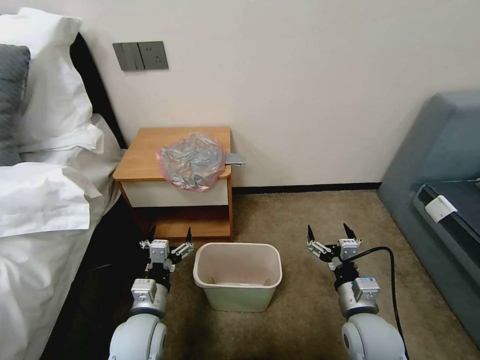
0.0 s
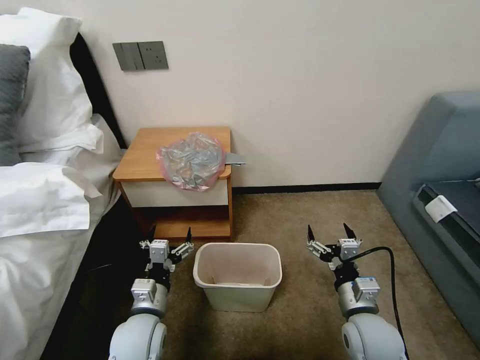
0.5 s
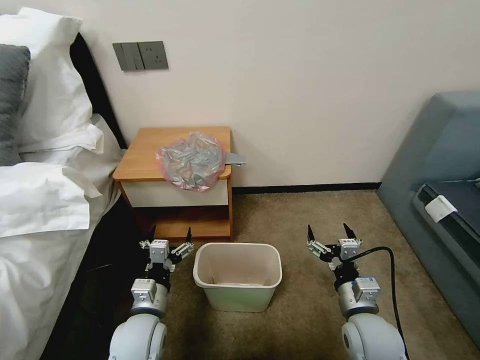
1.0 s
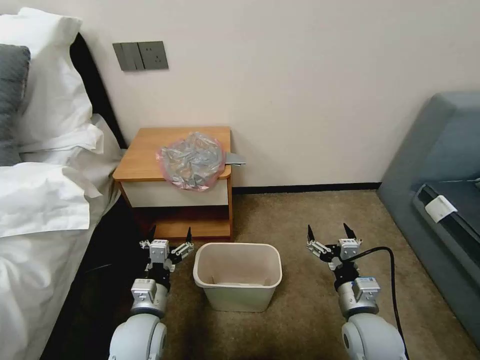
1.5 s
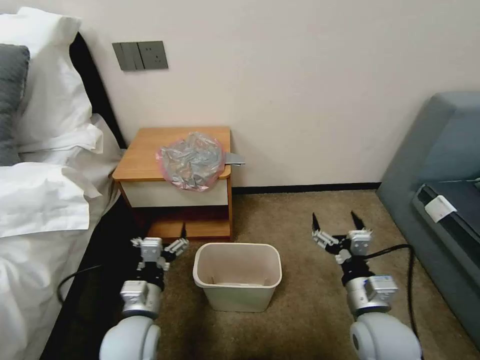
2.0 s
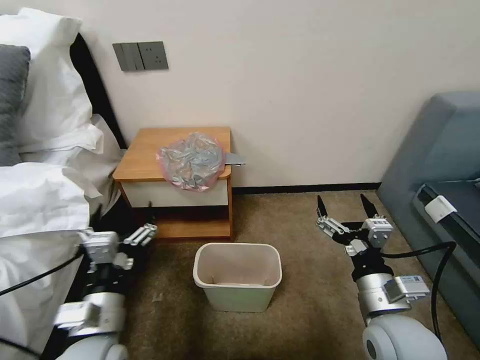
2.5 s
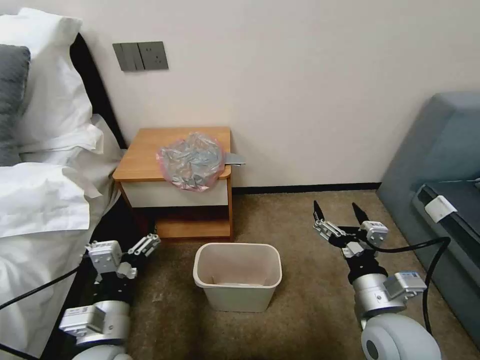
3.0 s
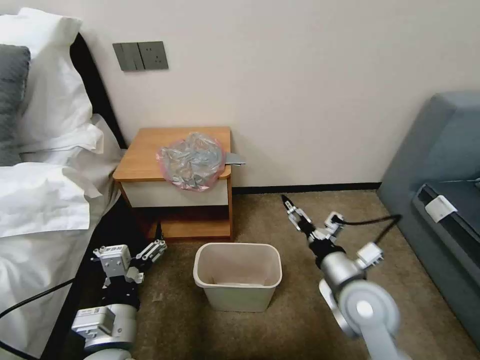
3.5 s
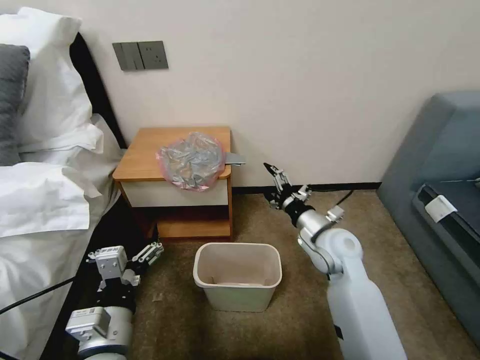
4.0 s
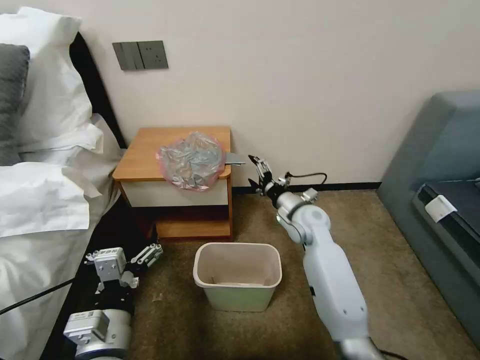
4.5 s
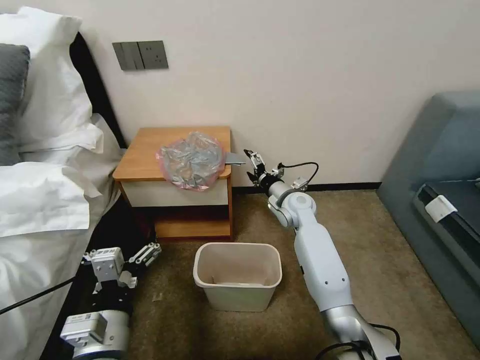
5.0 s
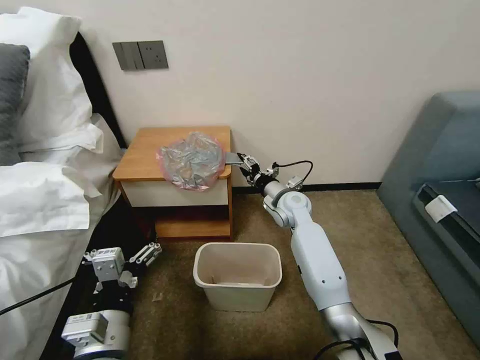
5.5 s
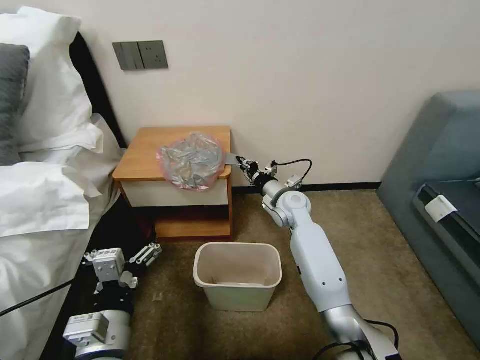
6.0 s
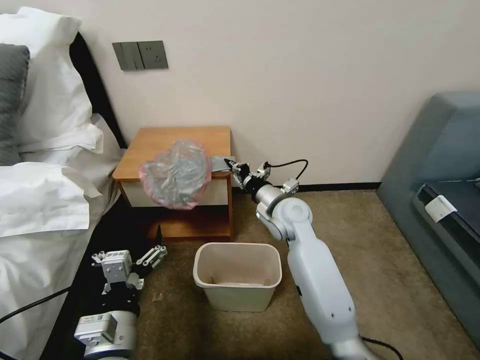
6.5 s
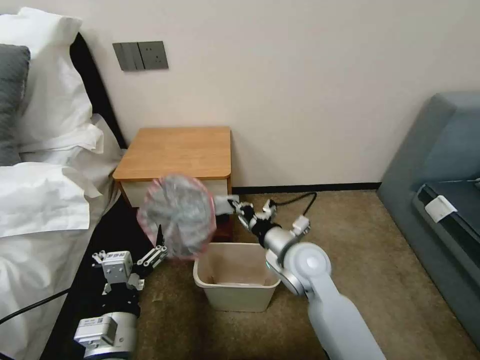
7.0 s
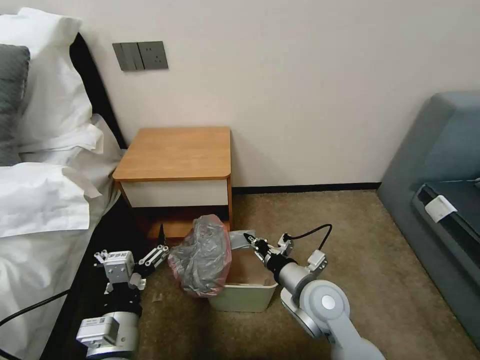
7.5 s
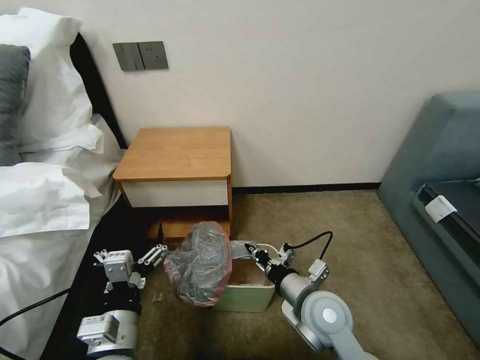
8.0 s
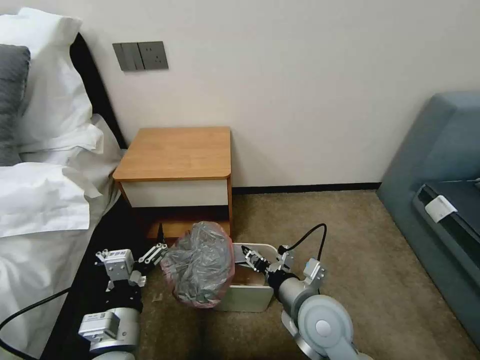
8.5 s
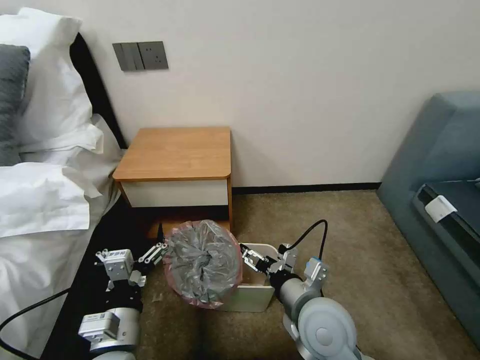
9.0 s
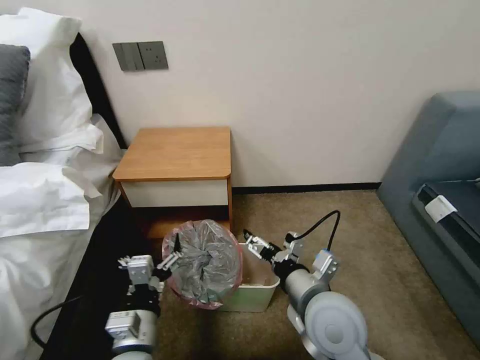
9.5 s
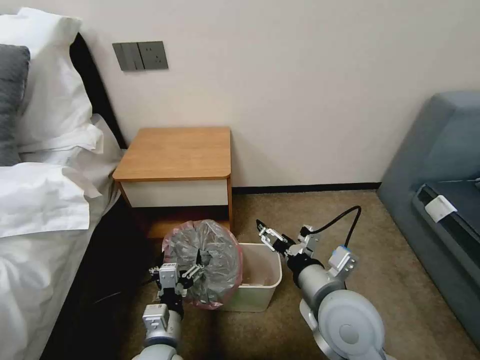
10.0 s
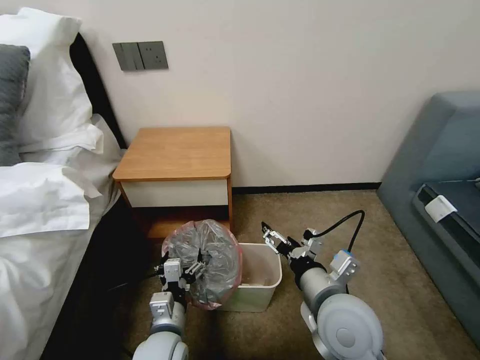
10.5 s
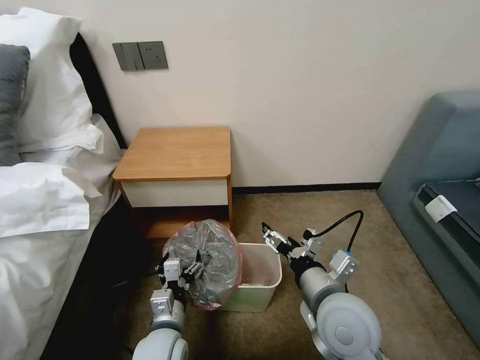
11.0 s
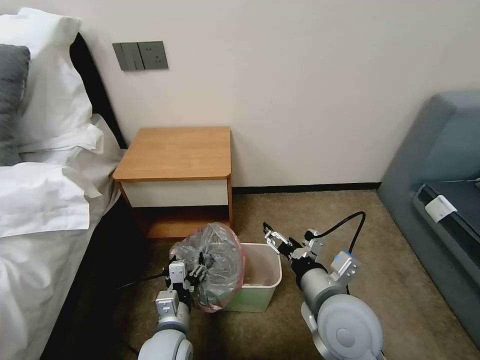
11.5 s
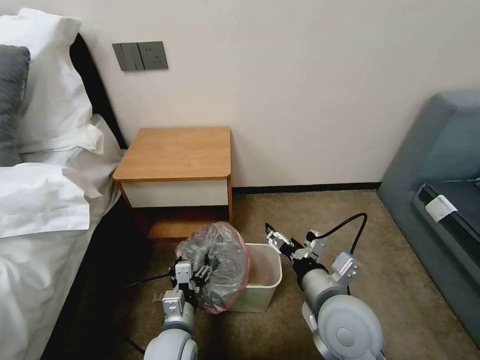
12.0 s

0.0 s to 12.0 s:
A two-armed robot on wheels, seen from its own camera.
Task of the whole recording: Pick up the garbage bag from the table and place it over the trash can.
2.0 to 4.0 s: The left gripper goes some 10 cm upward and backward. The right gripper heads forward, covering approximately 15 cm.
4.0 to 6.0 s: The right gripper heads forward and to the left, covering about 15 cm, and closes its fingers.
6.0 to 8.0 s: The right gripper shifts roughly 25 cm backward.
8.0 to 10.0 s: The right gripper moves upward, approximately 10 cm, and opens its fingers, while the left gripper moves downward, approximately 10 cm.
10.0 to 12.0 s: There are only small adjustments of the grippers.

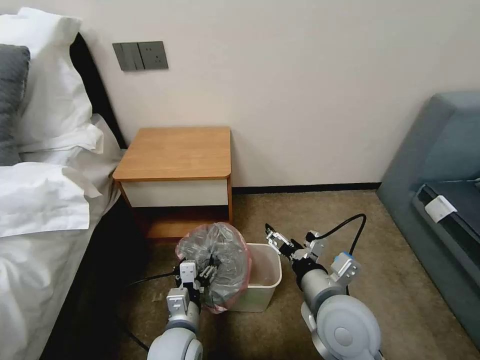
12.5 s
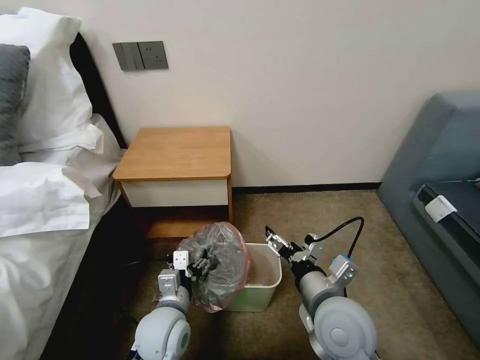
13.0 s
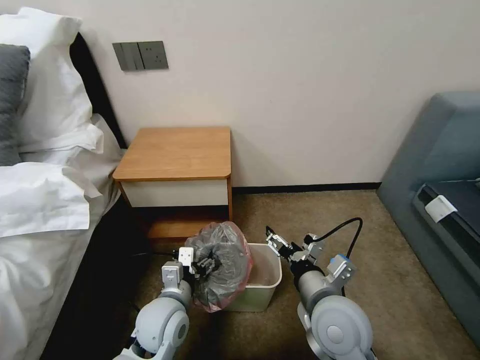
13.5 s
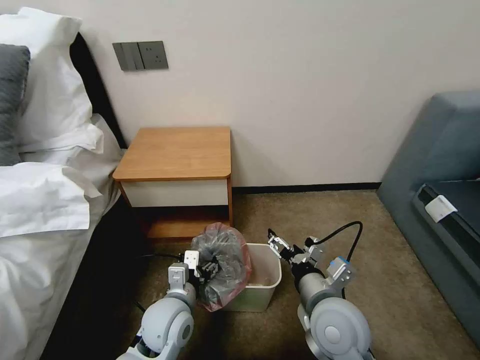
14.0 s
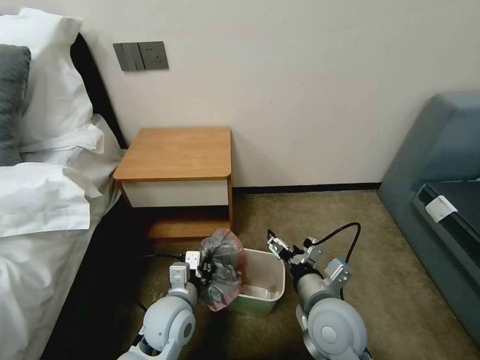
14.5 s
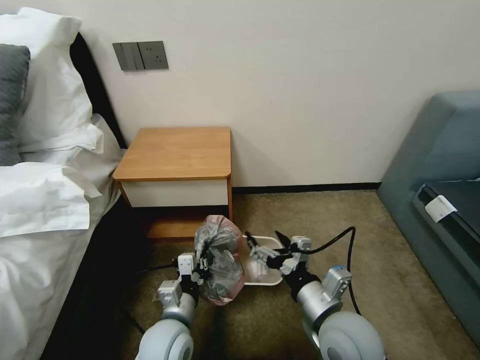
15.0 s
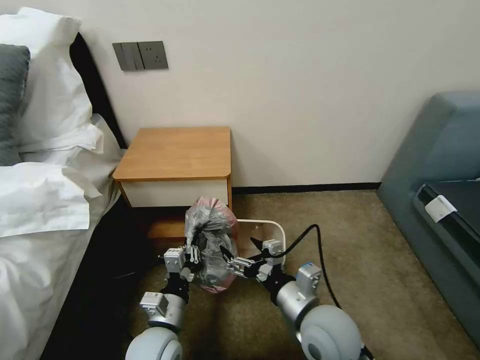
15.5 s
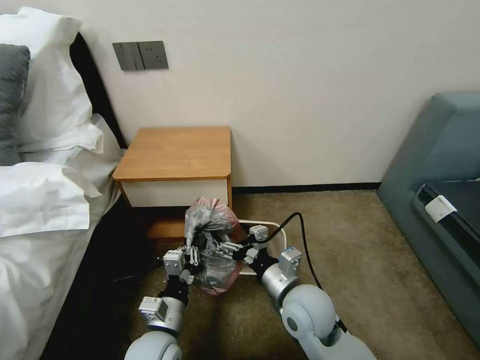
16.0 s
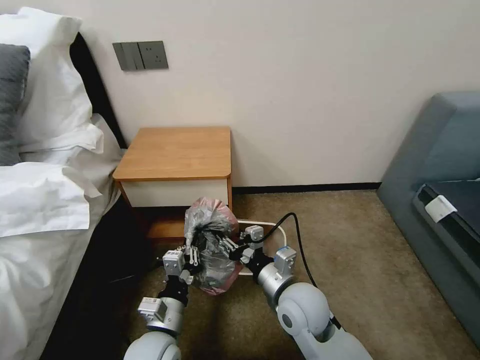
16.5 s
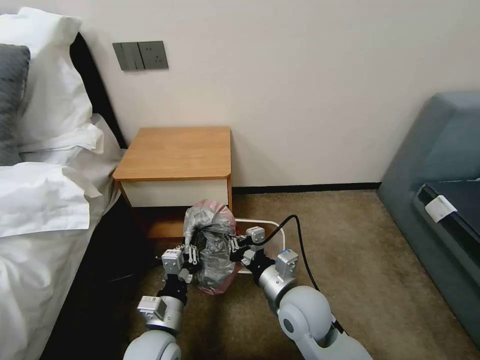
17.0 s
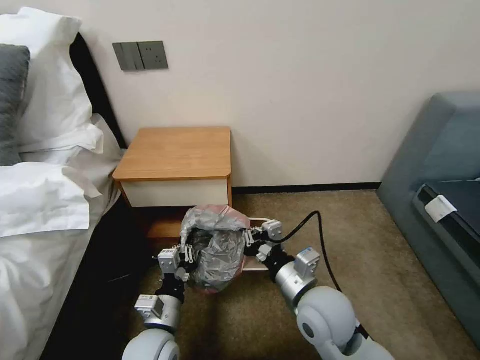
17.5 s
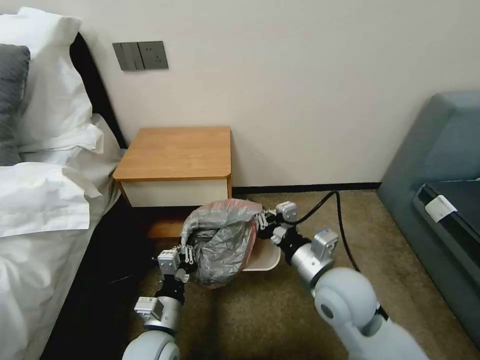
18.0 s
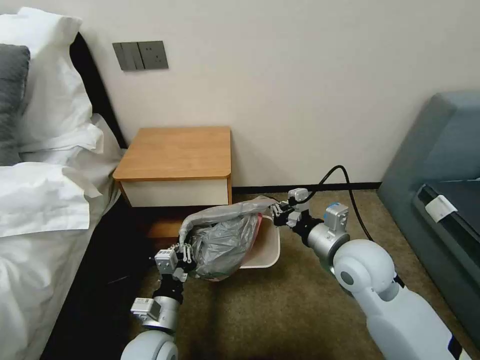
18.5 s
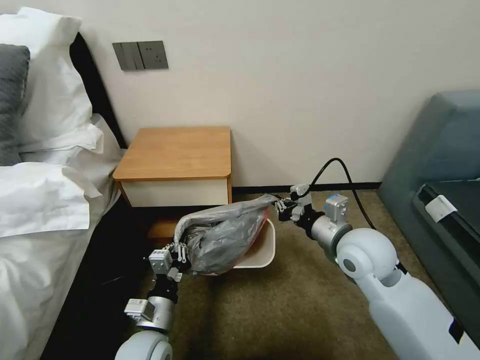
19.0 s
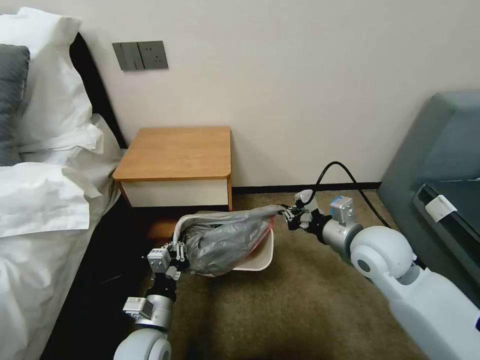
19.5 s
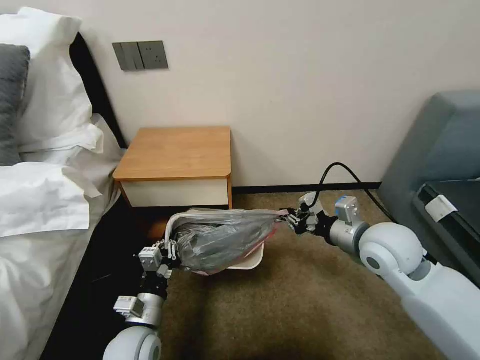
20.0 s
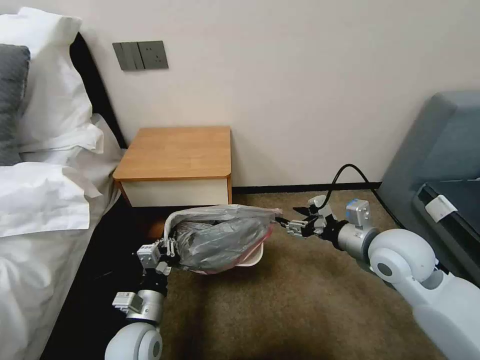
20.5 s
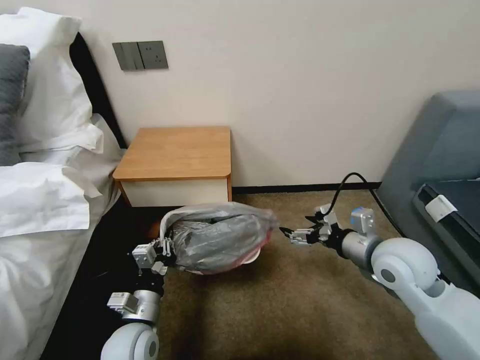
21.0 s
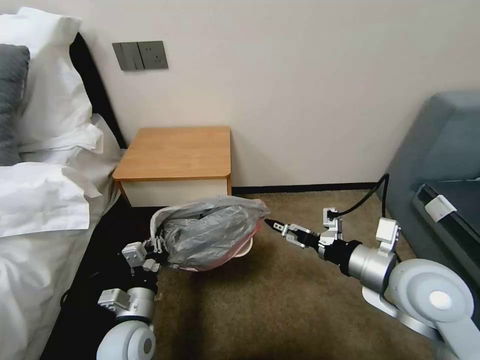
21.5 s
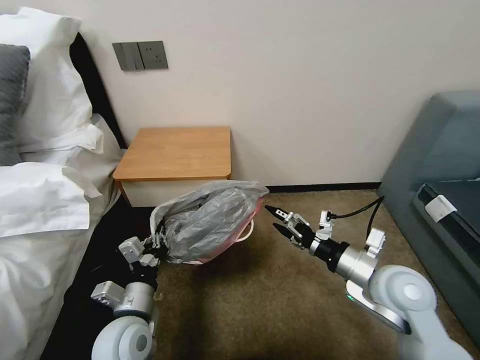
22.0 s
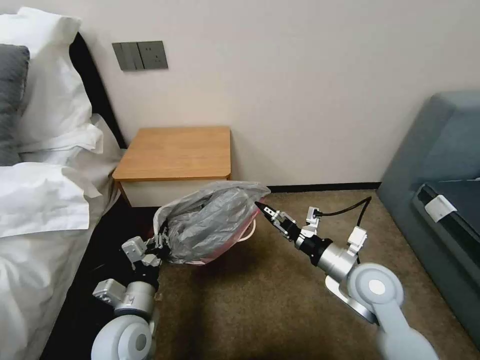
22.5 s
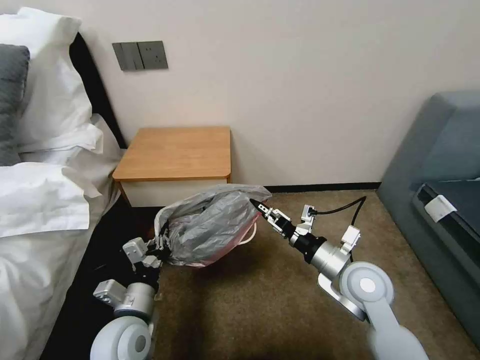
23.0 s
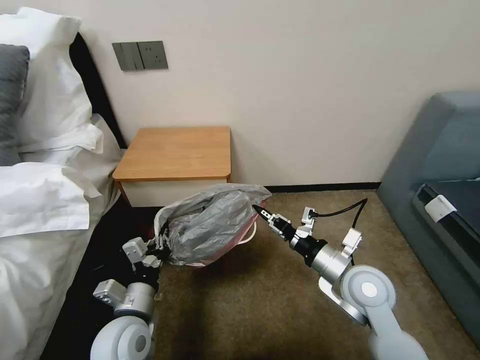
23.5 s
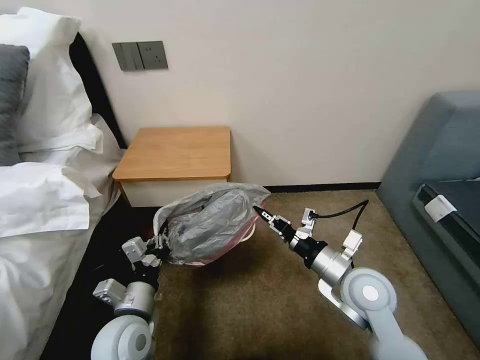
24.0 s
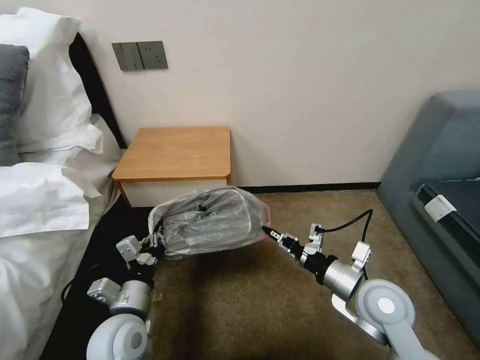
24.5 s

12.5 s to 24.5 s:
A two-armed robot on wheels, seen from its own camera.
Task of the whole recording: Pick up the garbage bag from the table and place it over the trash can.
12.5 to 14.5 s: The left gripper is displaced forward by roughly 5 cm, and closes its fingers.
14.5 to 16.5 s: The right gripper shifts by approximately 5 cm, and closes its fingers; the left gripper heads backward, covering approximately 5 cm.
16.5 to 18.5 s: The right gripper moves to the right and upward, about 15 cm, and closes.
18.5 to 20.5 s: The right gripper travels to the right by about 5 cm, and opens up.
20.5 to 22.5 s: The right gripper goes approximately 5 cm downward.
22.5 to 24.5 s: The right gripper closes.

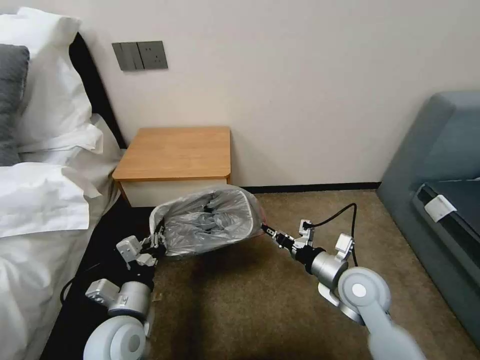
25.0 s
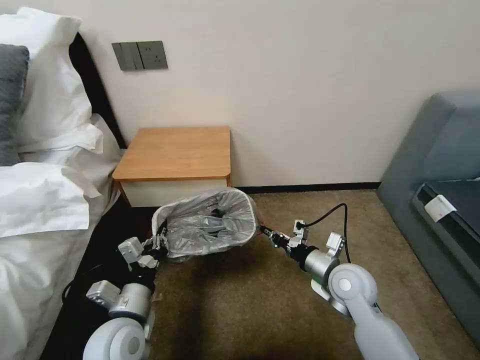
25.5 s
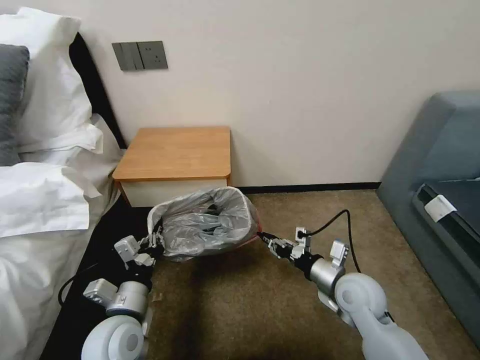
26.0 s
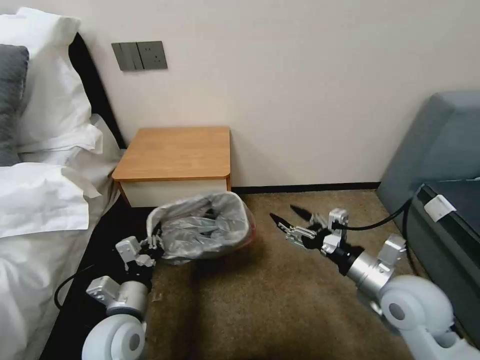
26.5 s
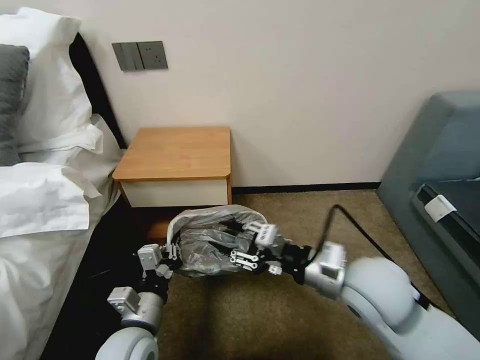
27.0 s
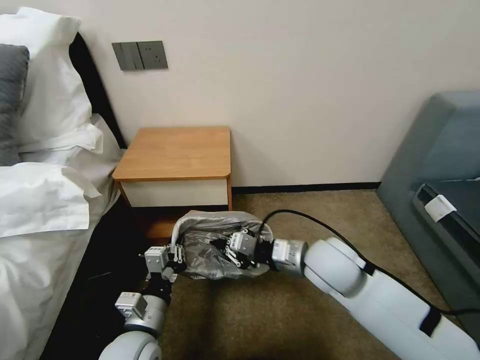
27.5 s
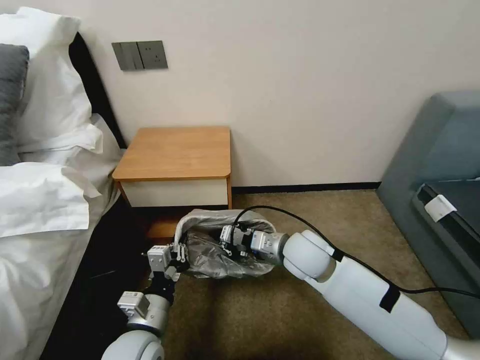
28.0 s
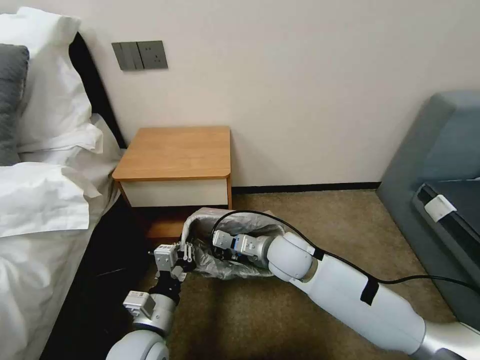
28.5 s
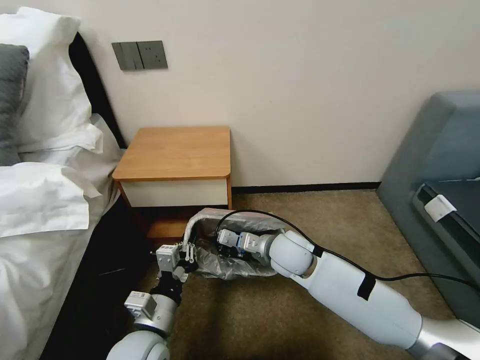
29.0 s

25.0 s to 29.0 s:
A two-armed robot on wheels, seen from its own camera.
Task of the whole recording: Pick up the garbage bag from the table and place it over the trash can.
25.0 to 27.0 s: The right gripper travels upward by some 10 cm, and opens its fingers.
27.0 to 29.0 s: The right gripper goes some 20 cm forward, downward and to the left, and closes its fingers.
